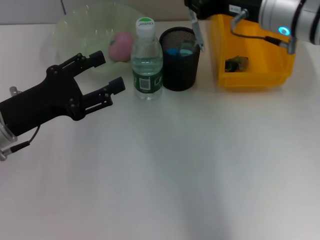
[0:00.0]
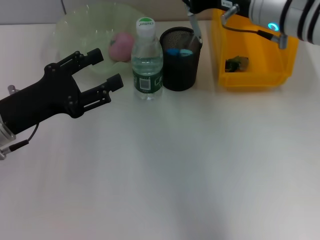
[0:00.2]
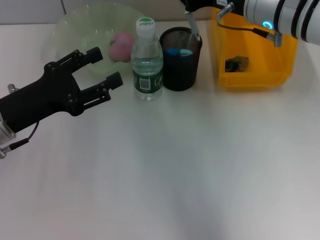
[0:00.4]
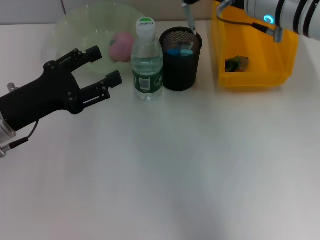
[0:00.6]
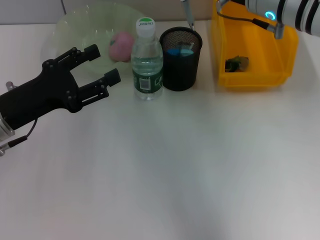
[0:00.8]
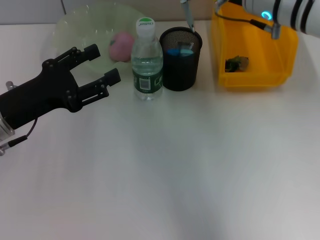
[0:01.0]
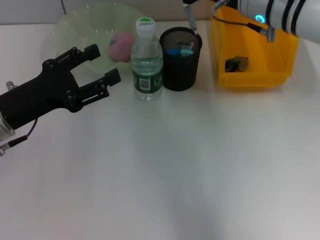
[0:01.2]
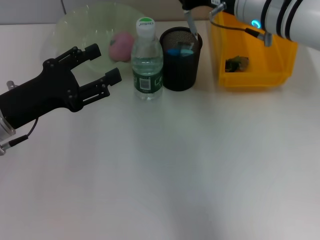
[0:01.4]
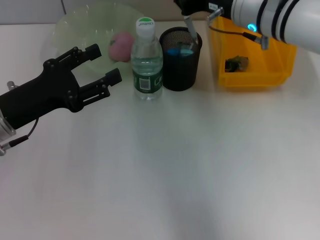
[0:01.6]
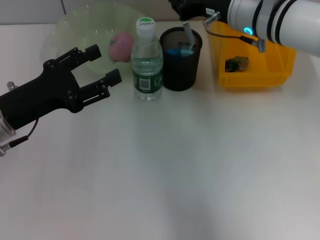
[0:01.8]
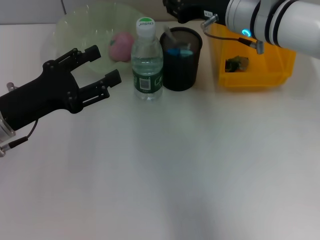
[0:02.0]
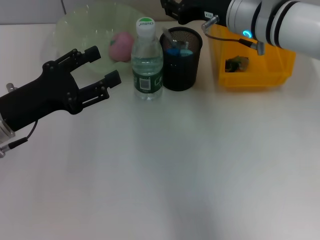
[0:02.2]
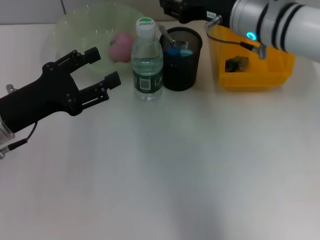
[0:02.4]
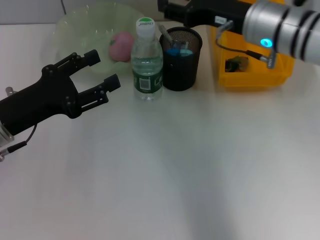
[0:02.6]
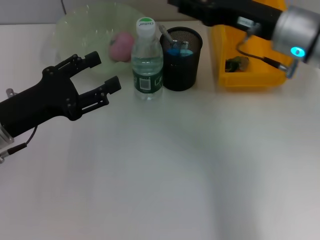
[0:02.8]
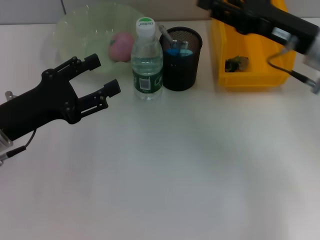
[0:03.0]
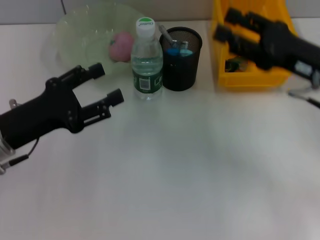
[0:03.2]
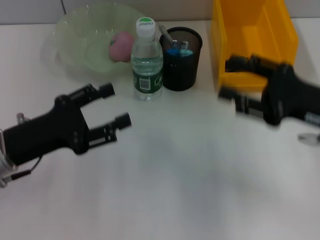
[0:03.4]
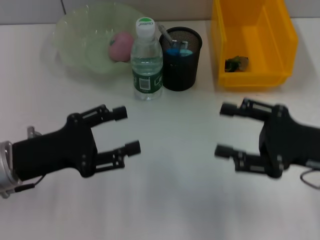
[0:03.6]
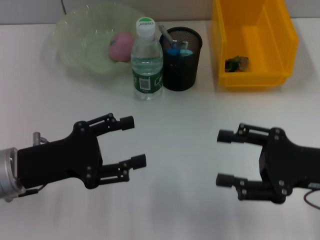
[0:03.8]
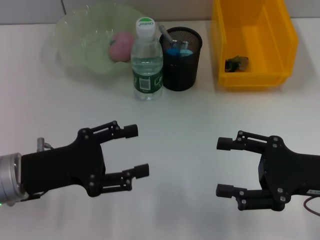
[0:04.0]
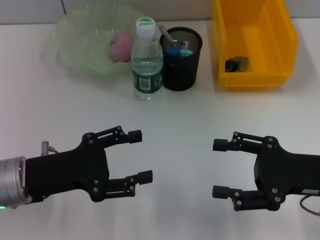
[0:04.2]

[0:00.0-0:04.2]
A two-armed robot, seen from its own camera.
Step, 0:00.0 to 0:02.4: Place the gray spring-action pen into the pen holder with the right hand.
0:00.0 to 0:01.4: There are only small adjustments of the grippers.
0:01.4 to 0:02.8: The right gripper moves some 5 cm, and opens.
0:02.8 to 0:04.2: The left gripper moves approximately 5 cm, while the right gripper travels backward, downward and to the right by approximately 15 cm.
